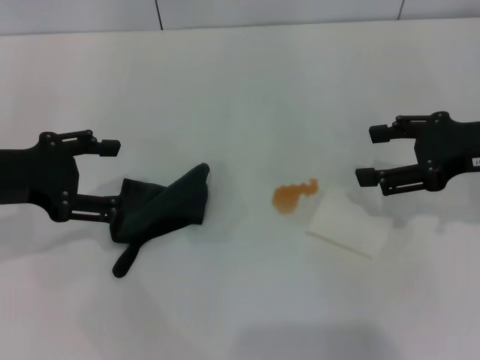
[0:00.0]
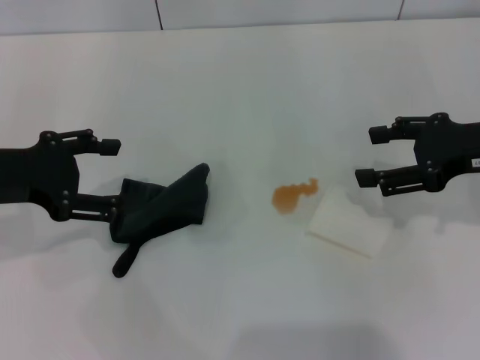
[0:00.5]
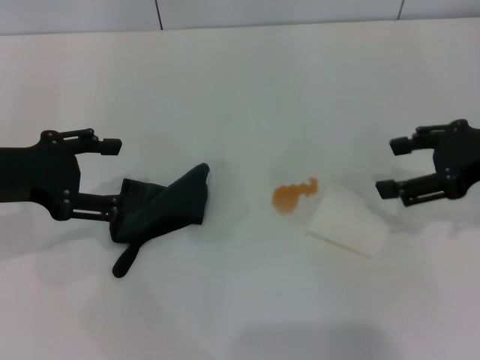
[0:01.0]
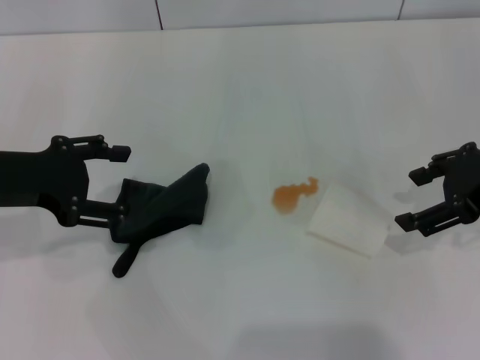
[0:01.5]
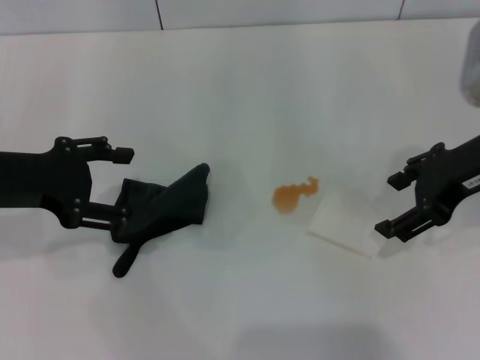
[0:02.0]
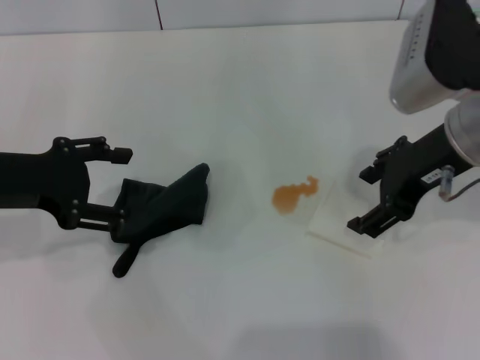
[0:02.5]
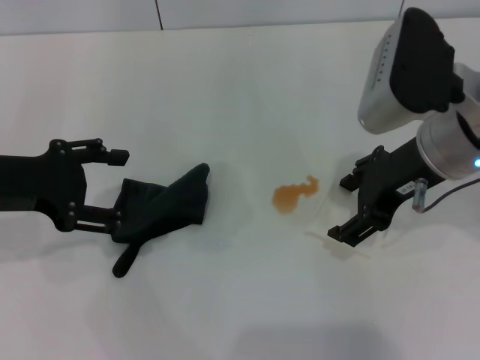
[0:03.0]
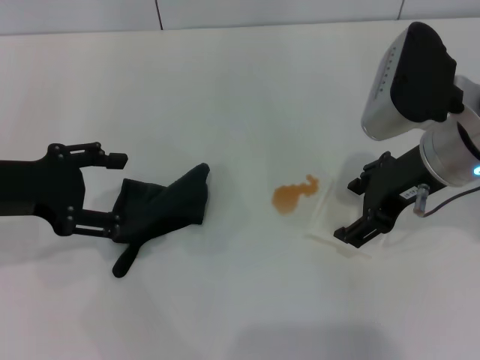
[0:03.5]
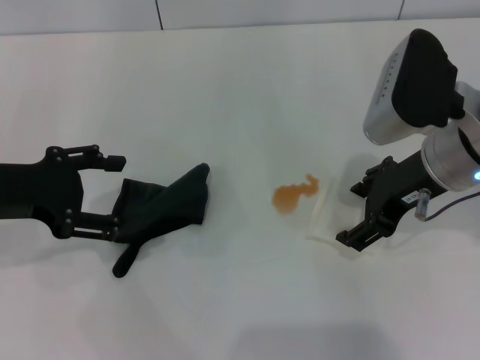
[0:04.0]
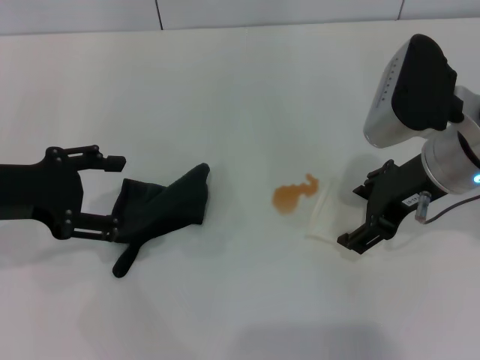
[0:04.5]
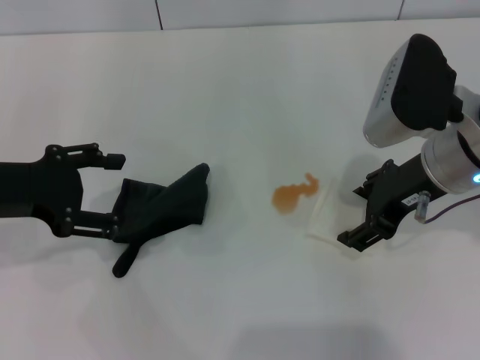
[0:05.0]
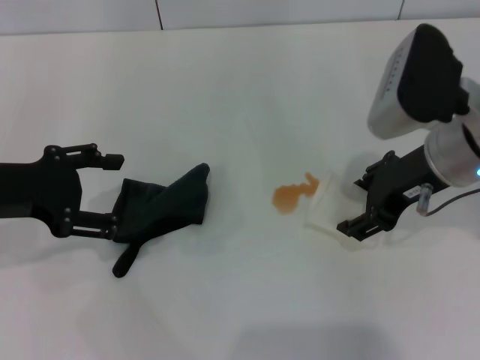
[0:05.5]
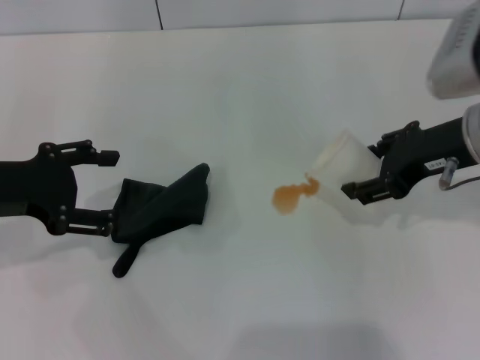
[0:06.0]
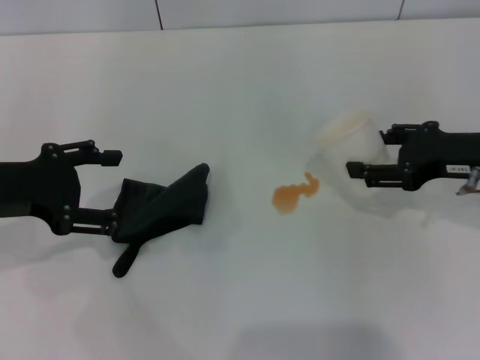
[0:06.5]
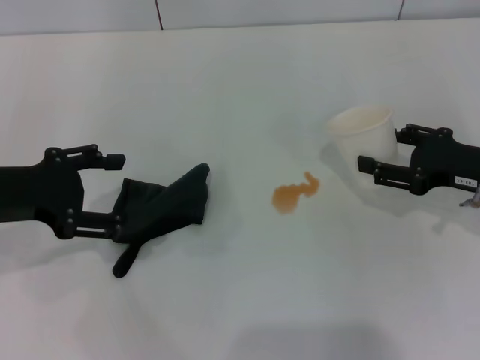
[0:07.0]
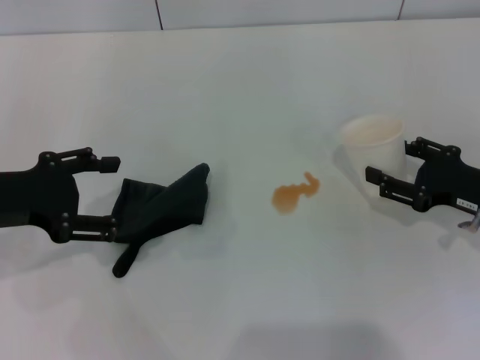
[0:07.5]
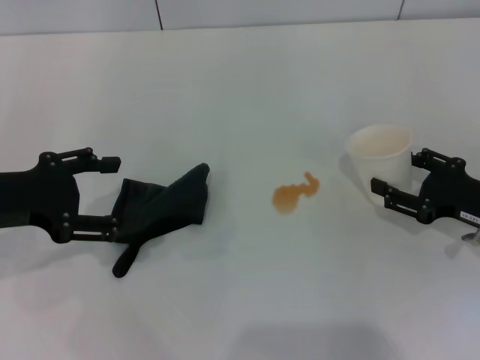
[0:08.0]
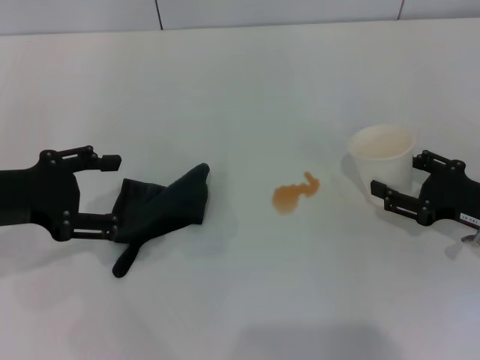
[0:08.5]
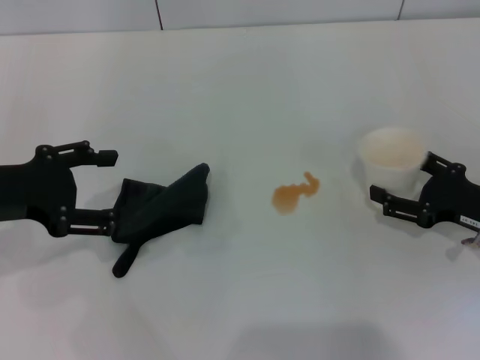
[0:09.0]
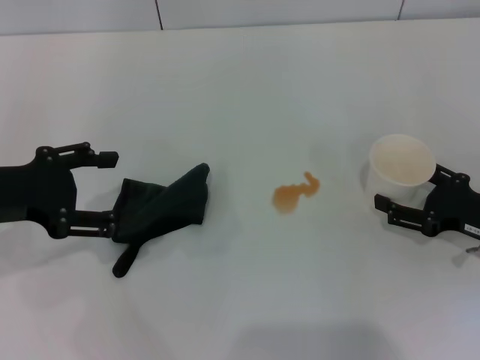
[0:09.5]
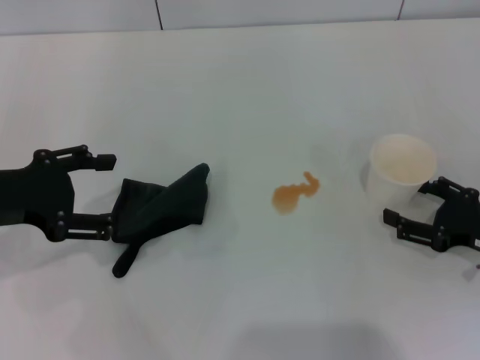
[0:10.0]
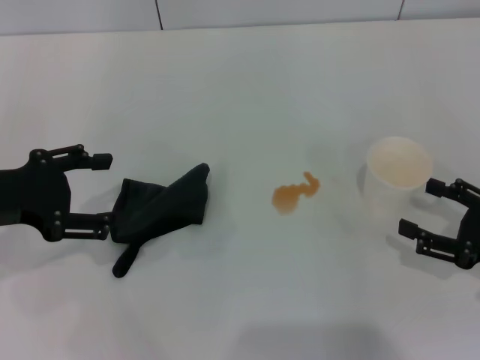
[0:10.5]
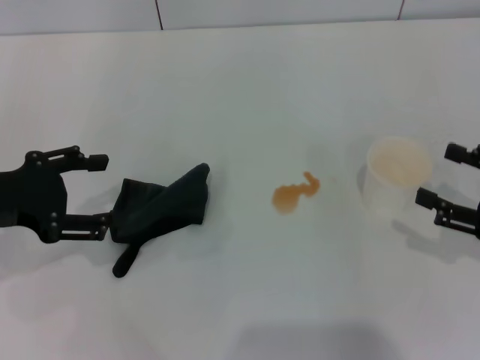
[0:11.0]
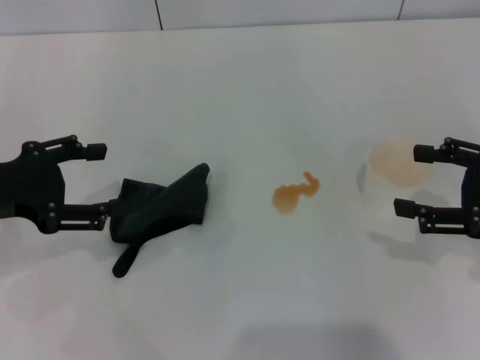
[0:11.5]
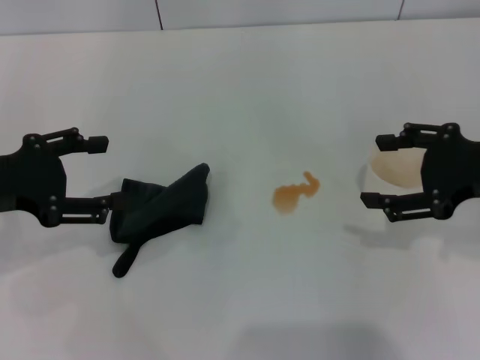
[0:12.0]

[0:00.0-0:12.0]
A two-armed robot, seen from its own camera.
Step, 0:00.0 to 0:05.5: Grasp the paper cup with the right gripper.
Step, 0:06.0 to 0:09.5: Stand the paper cup upright with the right gripper.
0:00.0 to 0:02.0: The right gripper shifts some 5 cm to the left.
0:02.0 to 0:04.0: The right gripper heads to the left, covering some 5 cm.
0:04.0 to 0:06.0: The right gripper closes its fingers.
0:06.0 to 0:08.0: The right gripper shifts roughly 15 cm downward and to the right.
0:08.0 to 0:10.0: The right gripper opens.
0:10.0 to 0:12.0: The right gripper goes roughly 15 cm upward.

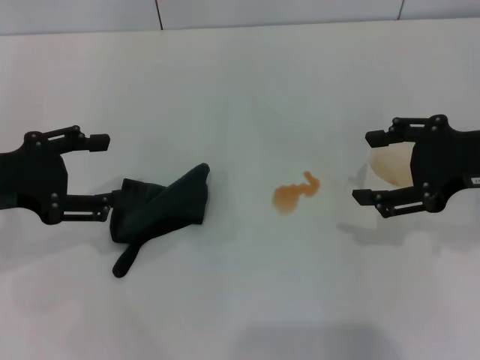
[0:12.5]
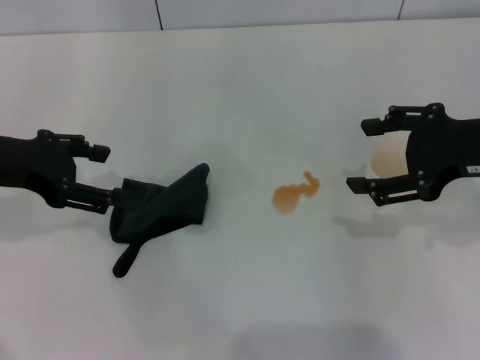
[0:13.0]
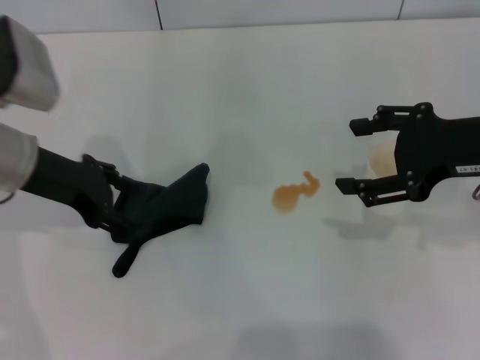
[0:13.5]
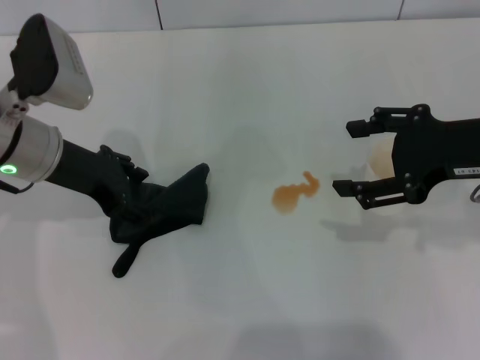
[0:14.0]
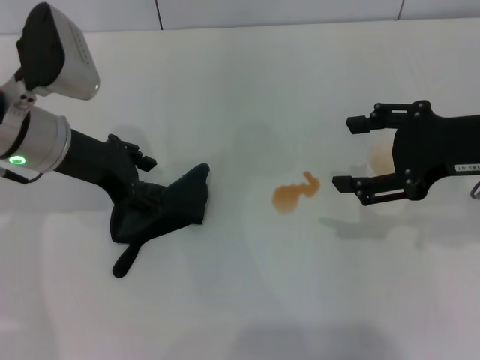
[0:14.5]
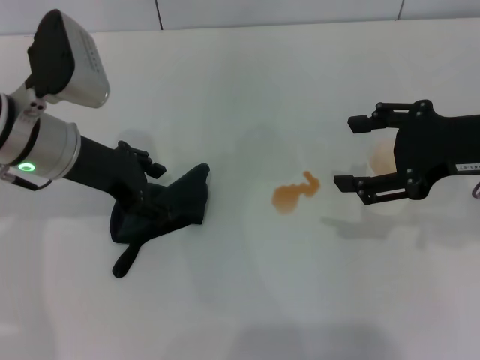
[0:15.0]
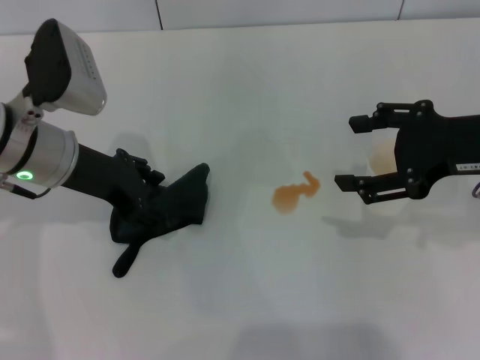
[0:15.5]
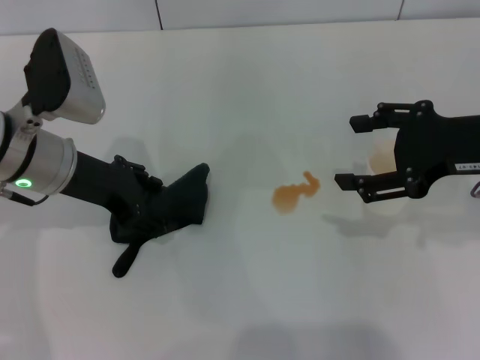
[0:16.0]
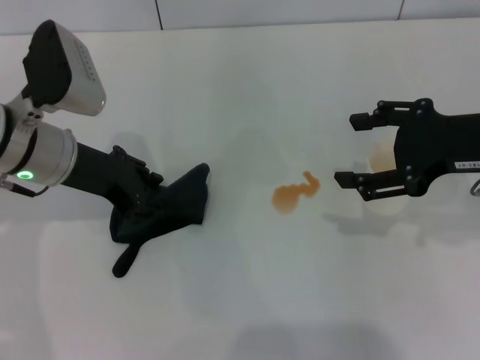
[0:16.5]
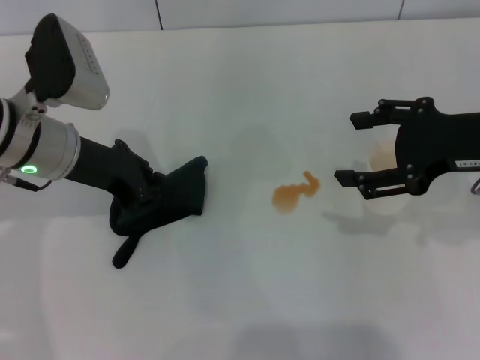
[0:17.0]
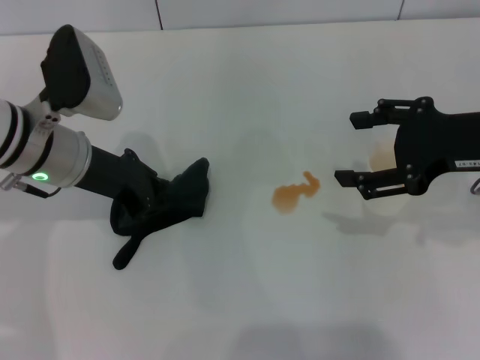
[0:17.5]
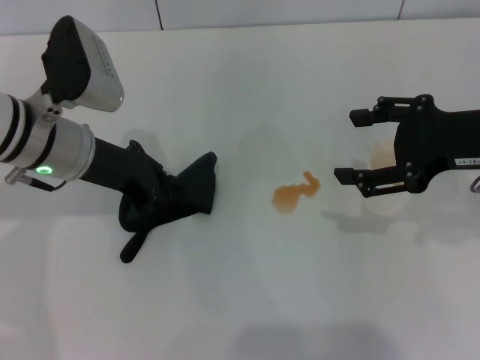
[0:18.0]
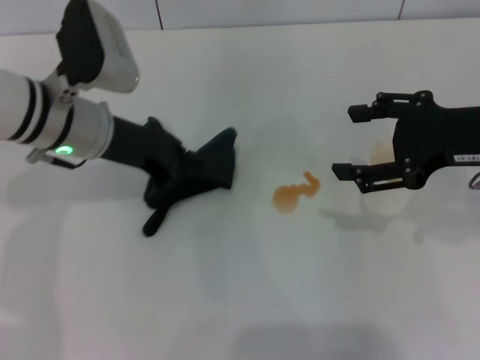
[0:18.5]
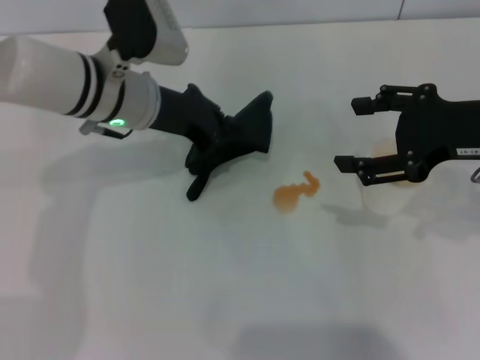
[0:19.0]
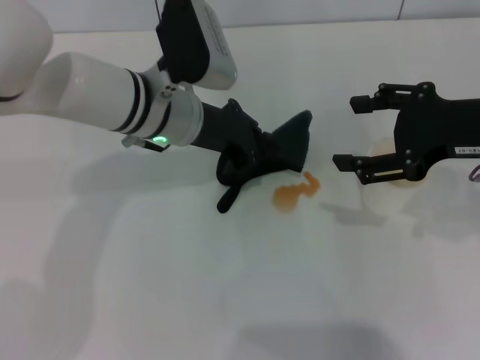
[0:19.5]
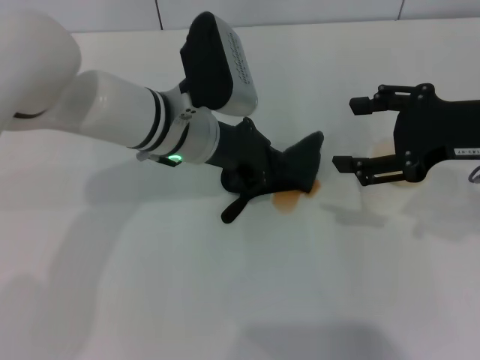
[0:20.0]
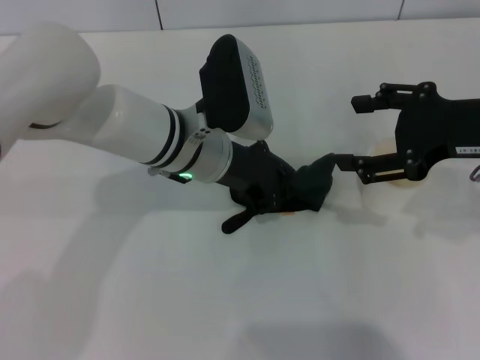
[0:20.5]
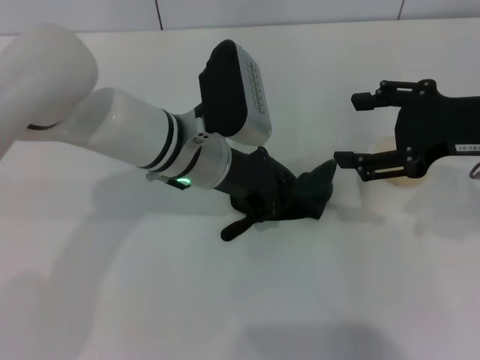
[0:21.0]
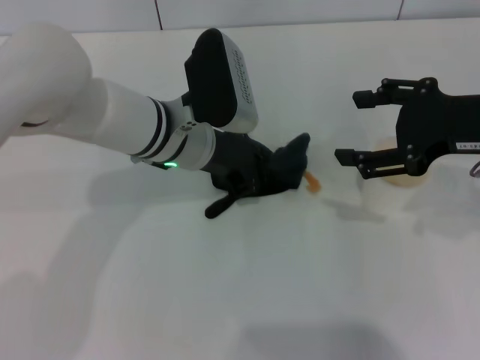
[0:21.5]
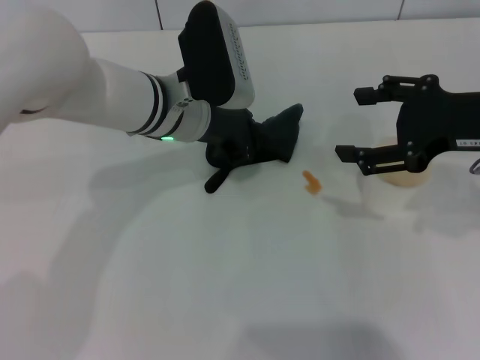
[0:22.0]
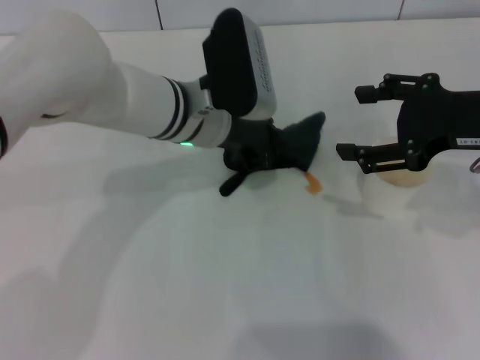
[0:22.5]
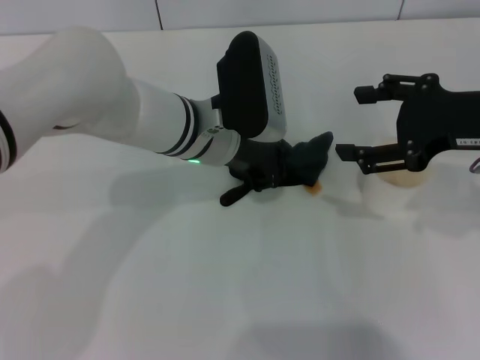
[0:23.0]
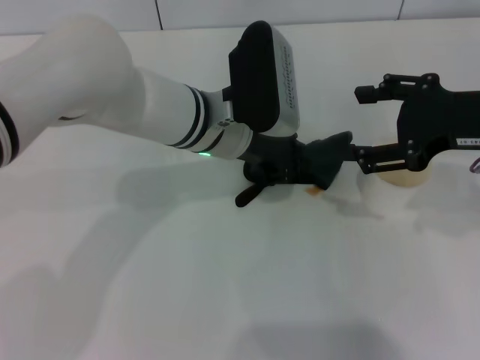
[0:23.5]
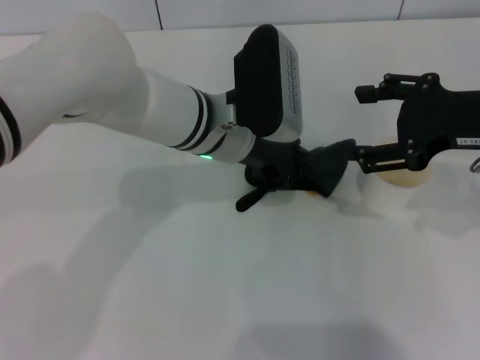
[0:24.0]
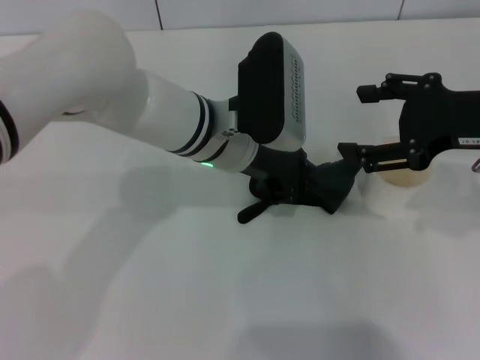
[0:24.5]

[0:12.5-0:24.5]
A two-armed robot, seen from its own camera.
Step, 0:12.5 to 0:17.0: Grasp the rag with the left gripper.
0:12.5 to 0:14.5: The left gripper moves to the right and forward, about 10 cm.
0:14.5 to 0:16.5: The grippers make only small movements.
0:16.5 to 0:18.5: The left gripper closes its fingers.
0:18.5 to 0:20.5: The left gripper moves to the right, approximately 10 cm.
0:20.5 to 0:24.5: The grippers make only small movements.

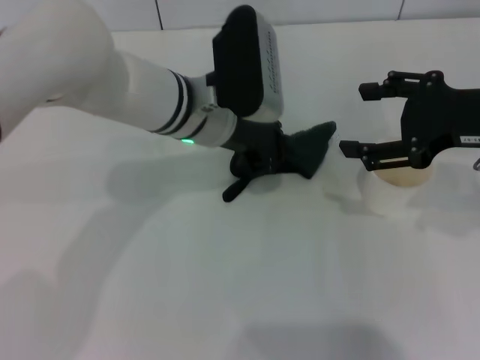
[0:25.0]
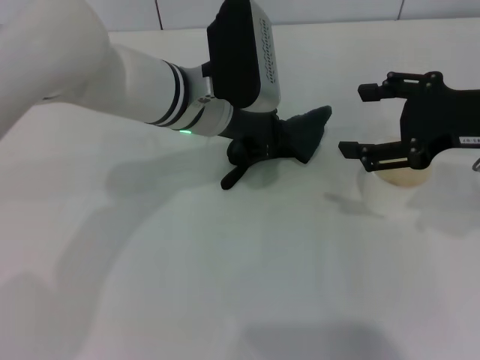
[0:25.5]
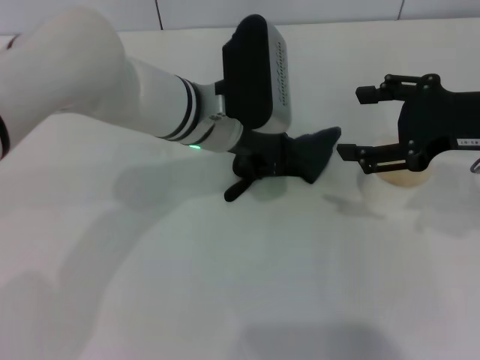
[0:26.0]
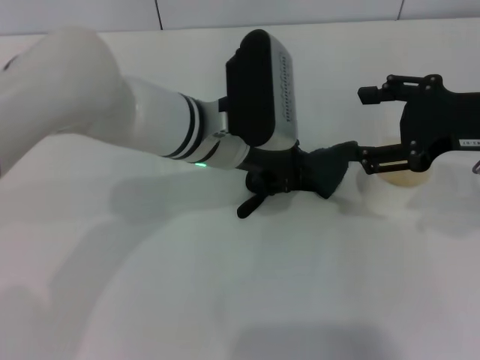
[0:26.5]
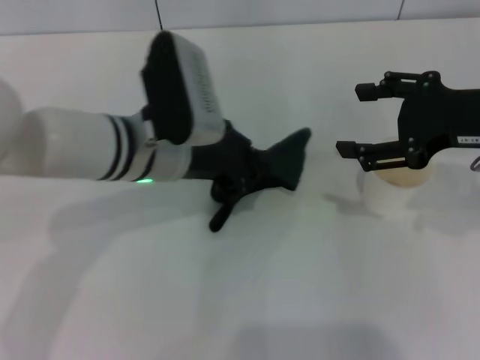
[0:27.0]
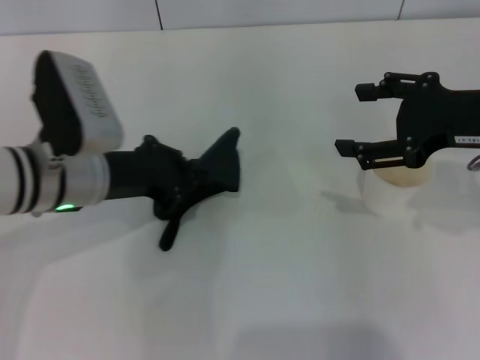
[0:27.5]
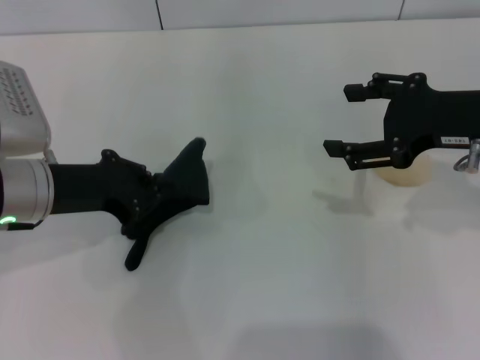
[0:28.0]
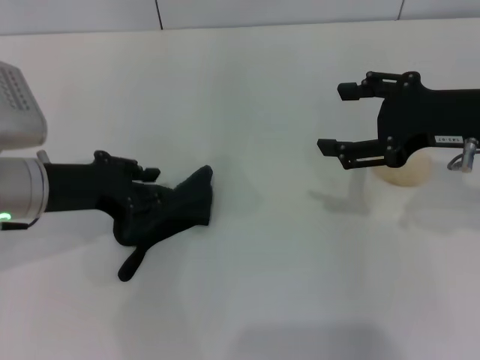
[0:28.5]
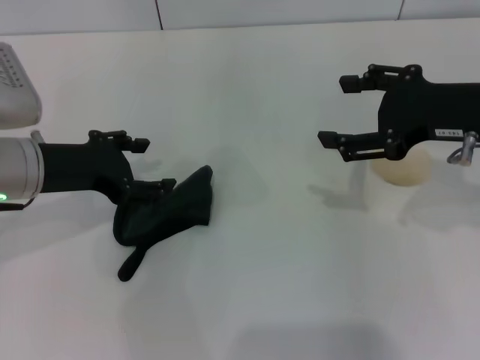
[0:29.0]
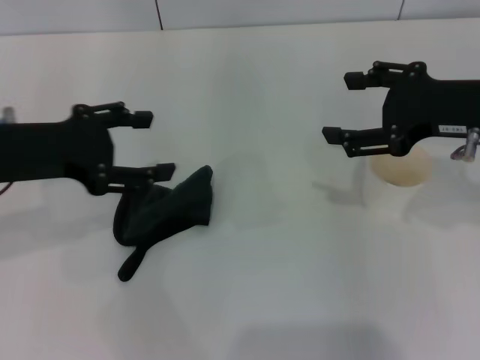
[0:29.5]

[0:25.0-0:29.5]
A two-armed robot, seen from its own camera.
Step, 0:25.0 to 0:28.0: Wipe the stains off the table with the left gripper.
0:25.0 to 0:27.0: The left gripper moves approximately 5 cm.
0:27.0 to 0:29.5: The left gripper goes about 15 cm to the left, and opens its fingers.
